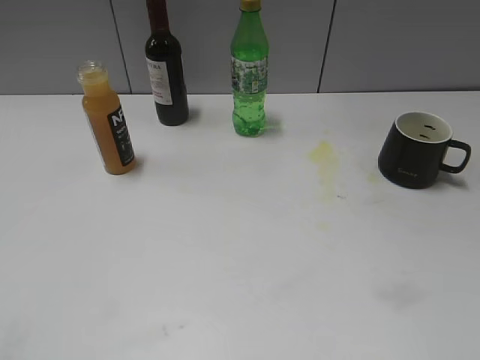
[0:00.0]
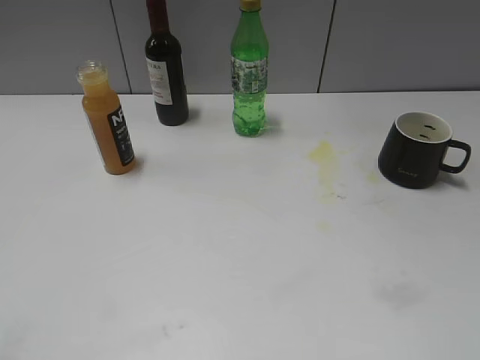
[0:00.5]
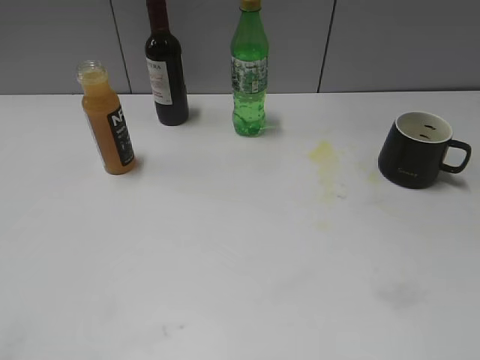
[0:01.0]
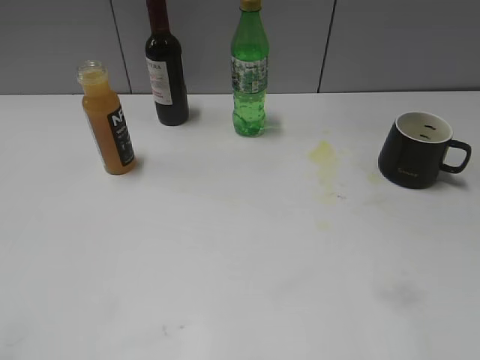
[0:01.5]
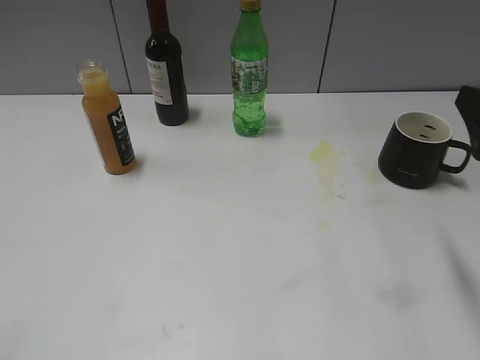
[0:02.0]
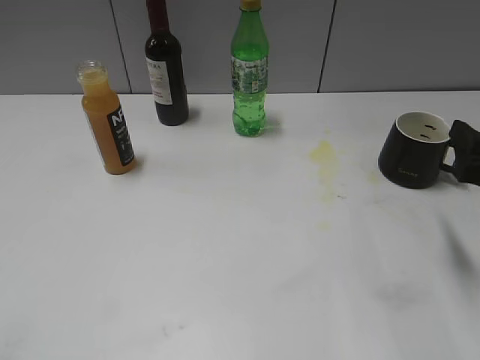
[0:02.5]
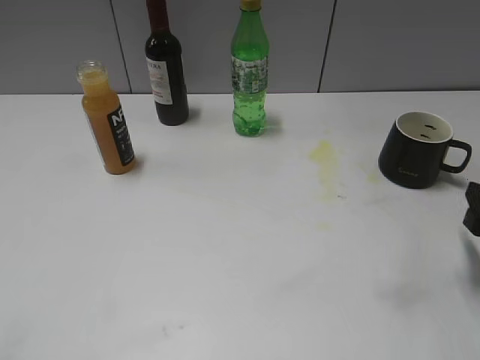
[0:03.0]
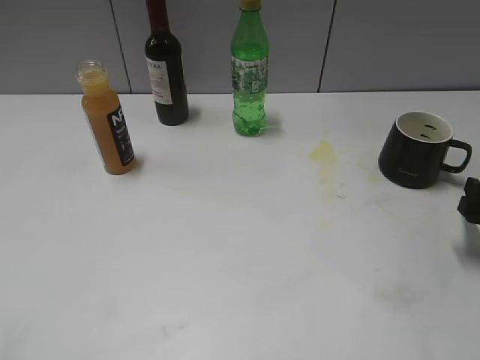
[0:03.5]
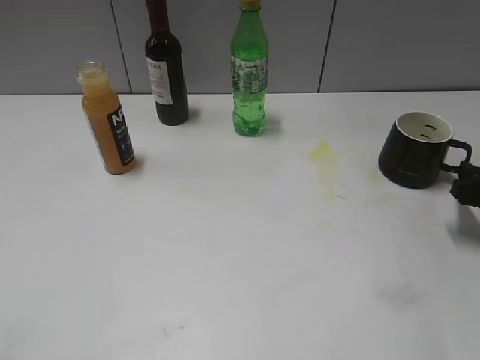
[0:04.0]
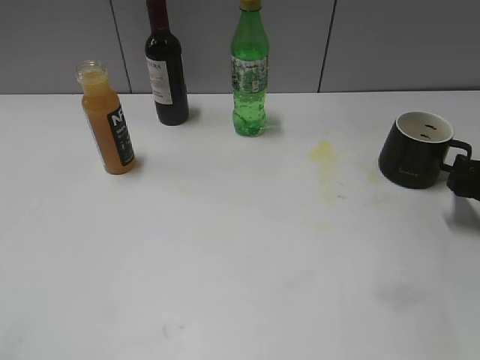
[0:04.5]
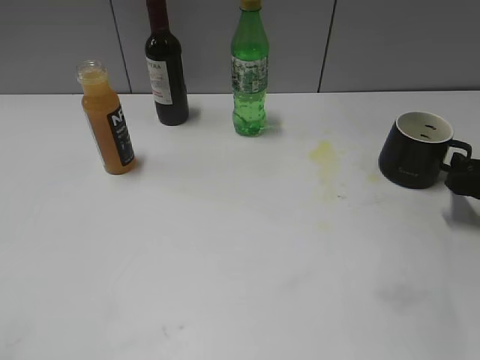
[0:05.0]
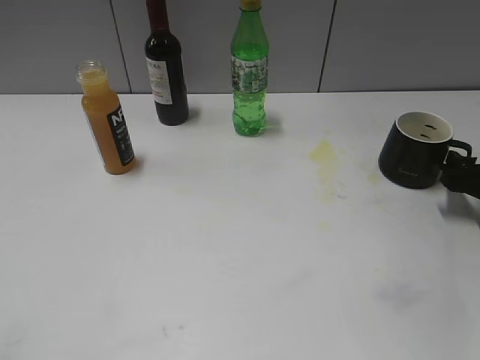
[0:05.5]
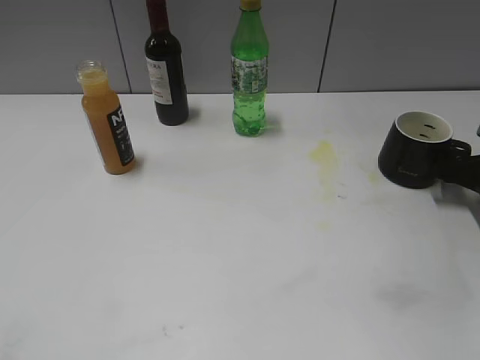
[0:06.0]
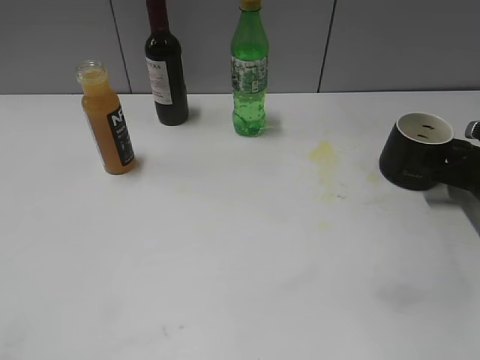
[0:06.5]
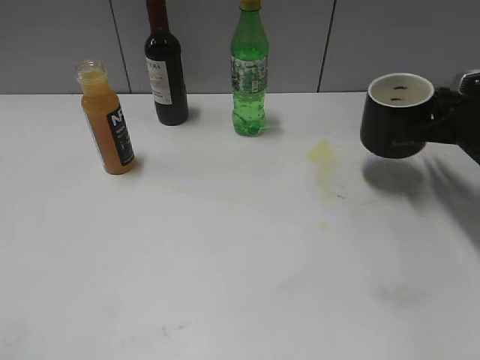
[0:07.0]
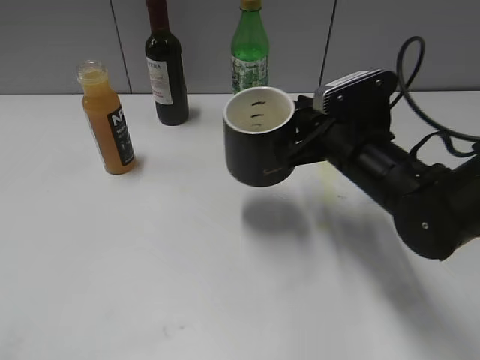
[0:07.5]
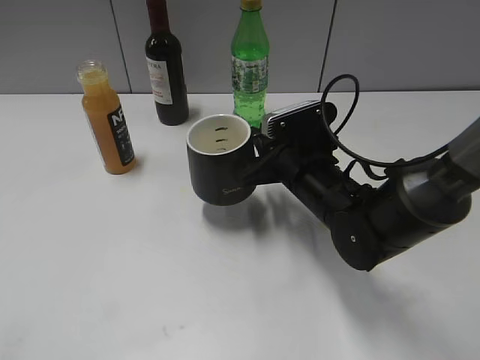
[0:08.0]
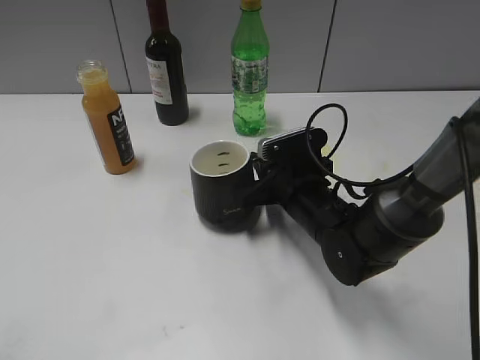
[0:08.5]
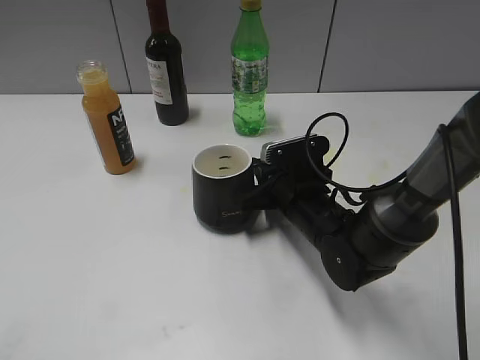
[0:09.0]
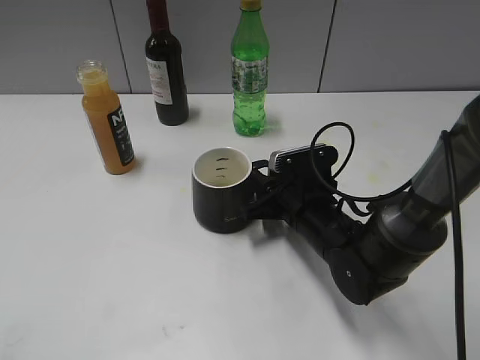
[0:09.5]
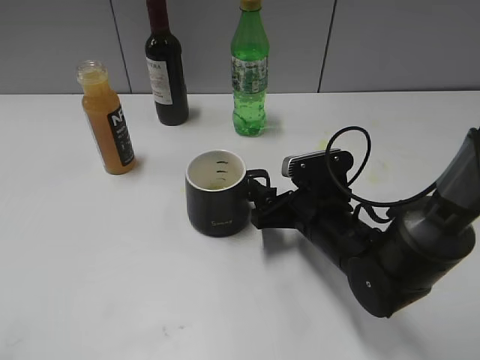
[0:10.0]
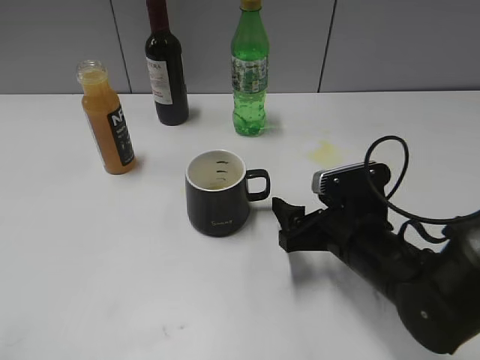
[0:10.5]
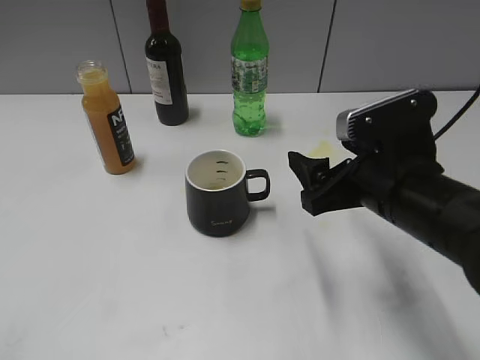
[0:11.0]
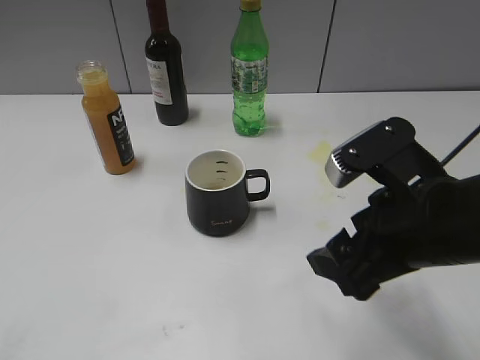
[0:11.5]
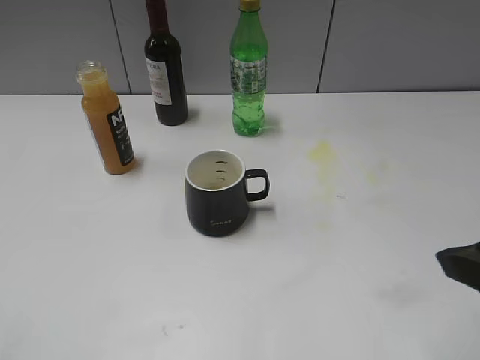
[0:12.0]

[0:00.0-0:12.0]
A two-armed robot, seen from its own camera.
Step, 0:01.0 to 0:06.5: Grasp the black cup with right gripper.
Step, 0:07.0 to 0:10.0: Place the black cup in the center of view with right gripper.
0:02.0 to 0:04.0: The right gripper travels downward, forward and to the right by approximately 20 cm.
0:04.0 to 0:06.0: The right gripper heads forward, covering approximately 5 cm.
0:06.0 to 0:08.0: The right gripper shifts roughly 25 cm to the left, and closes up.
0:08.0 to 0:10.0: The right gripper changes place by some 5 cm, and opens its fingers.
0:10.0 to 0:12.0: The right gripper travels upward, backward and to the right by some 25 cm.

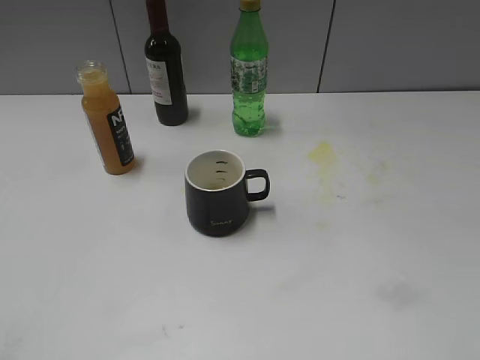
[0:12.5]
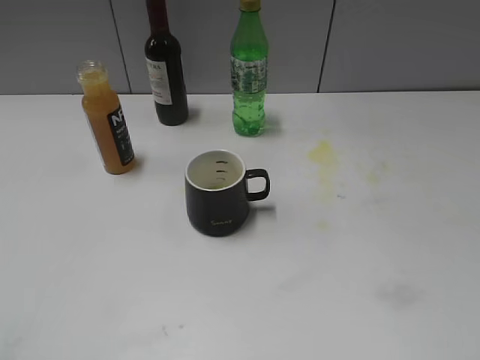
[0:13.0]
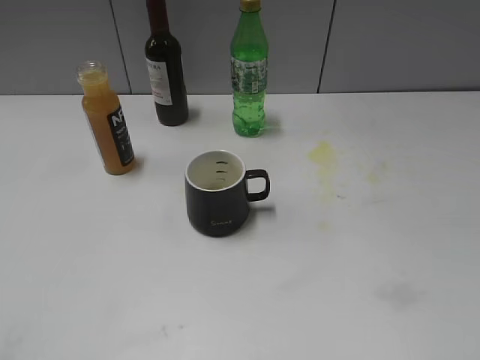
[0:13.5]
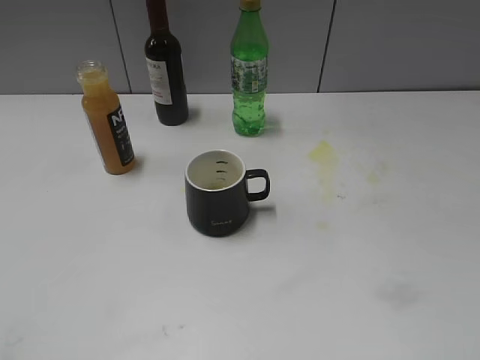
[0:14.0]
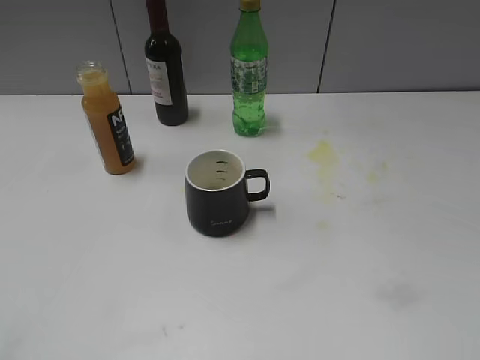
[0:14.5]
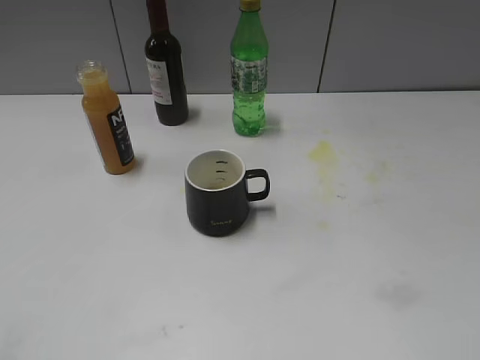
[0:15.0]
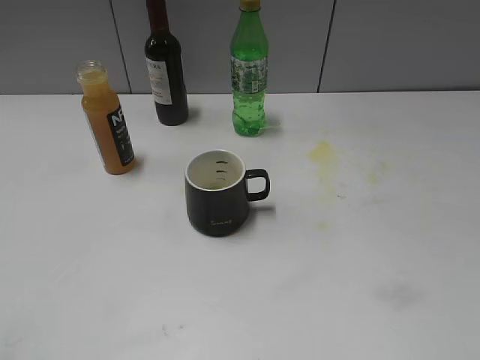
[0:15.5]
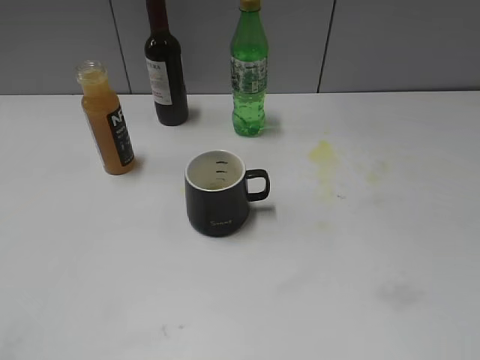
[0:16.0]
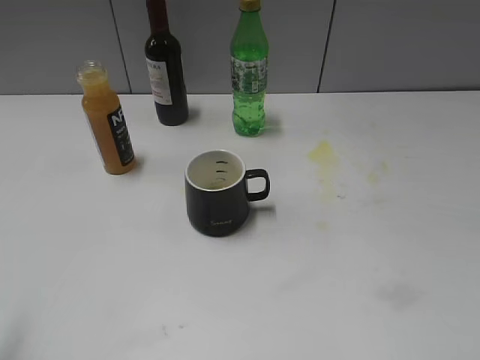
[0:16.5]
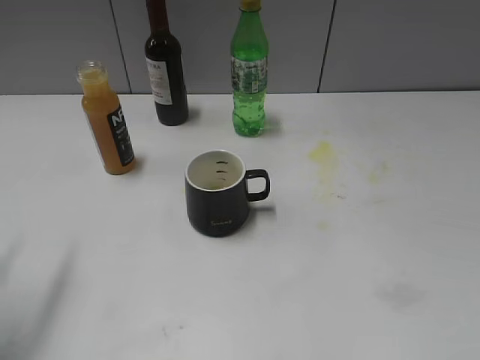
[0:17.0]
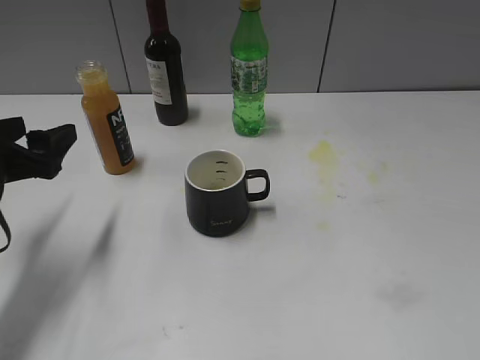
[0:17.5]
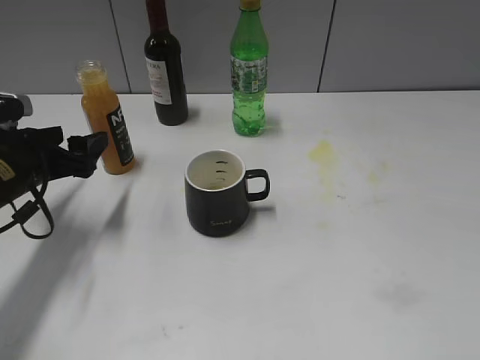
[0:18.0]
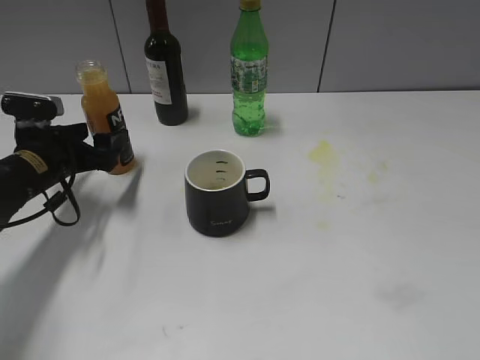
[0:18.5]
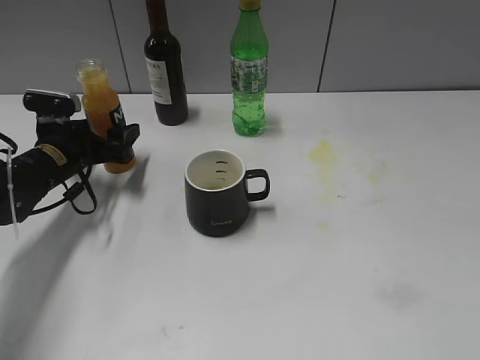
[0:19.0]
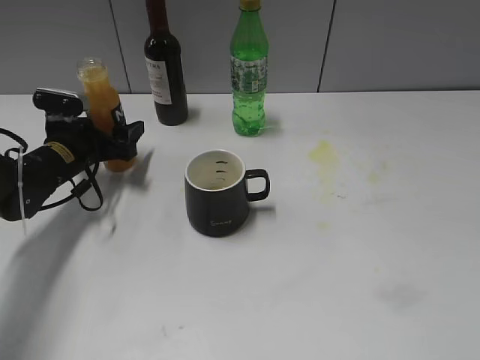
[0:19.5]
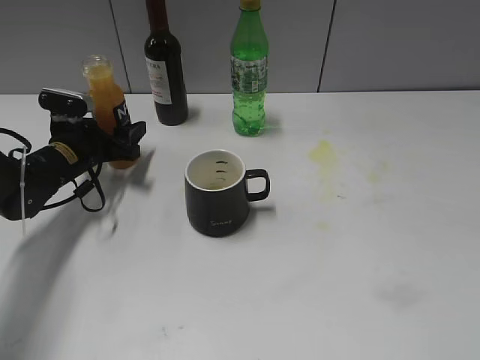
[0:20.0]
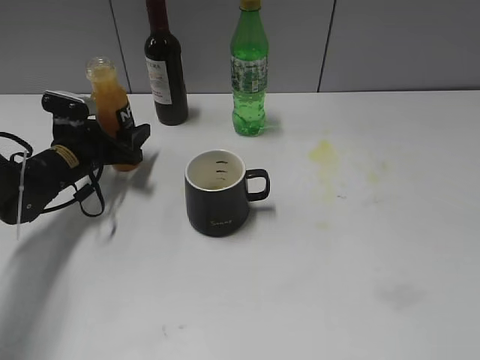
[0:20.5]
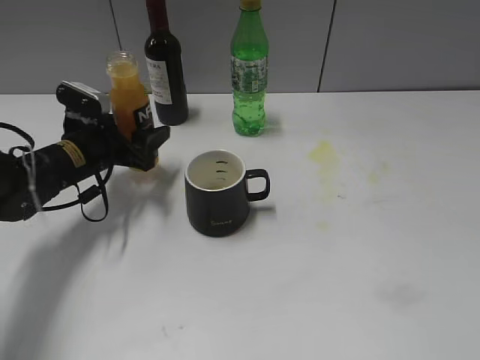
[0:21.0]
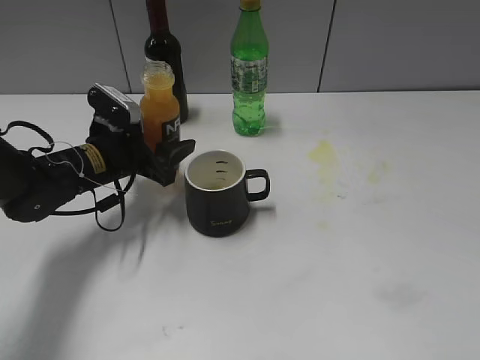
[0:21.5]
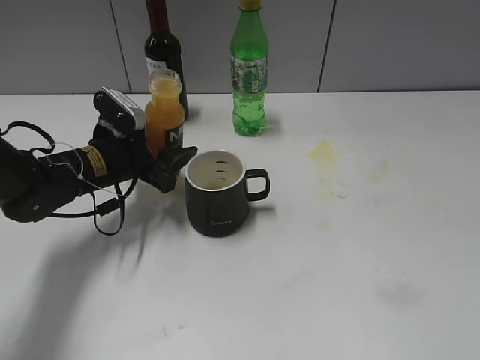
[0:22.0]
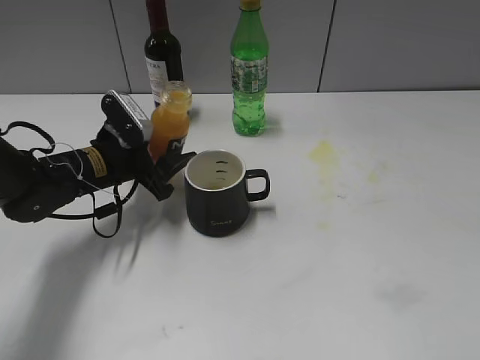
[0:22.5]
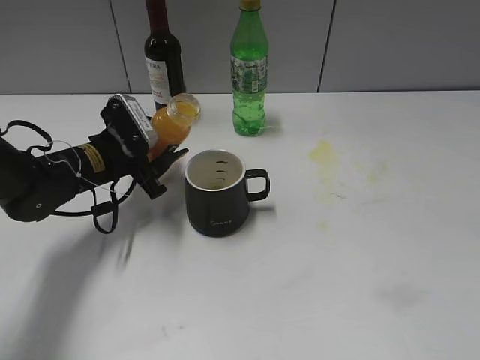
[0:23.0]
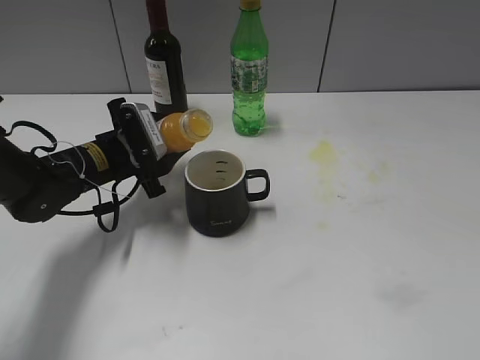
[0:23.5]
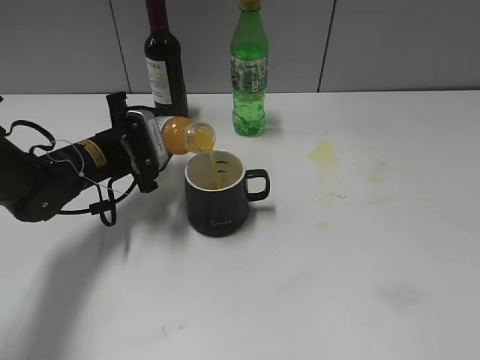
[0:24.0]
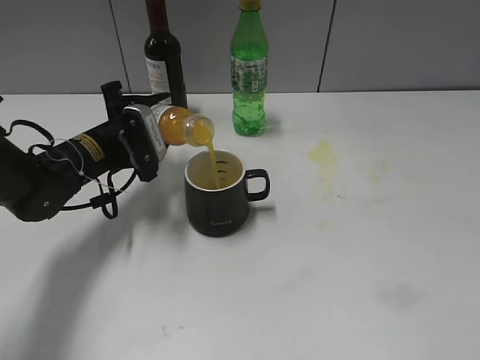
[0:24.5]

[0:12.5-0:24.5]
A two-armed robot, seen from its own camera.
Step, 0:12.5 to 0:19.5: Grasp the bottle with orange juice with left gripper.
0:16.5 to 0:18.5: The left gripper shifts approximately 35 cm forward and downward.
0:18.5 to 0:20.5: The left gripper moves forward, roughly 5 cm, and closes.
0:20.5 to 0:22.5: The left gripper goes roughly 5 cm to the right.

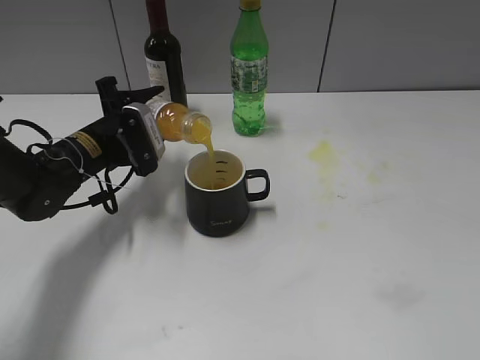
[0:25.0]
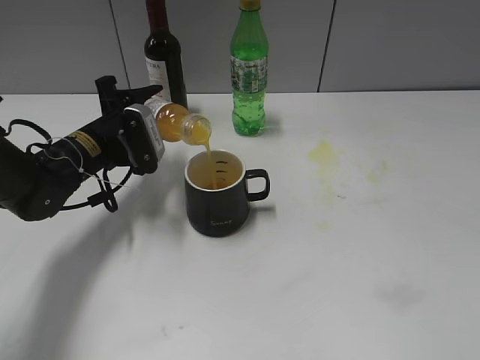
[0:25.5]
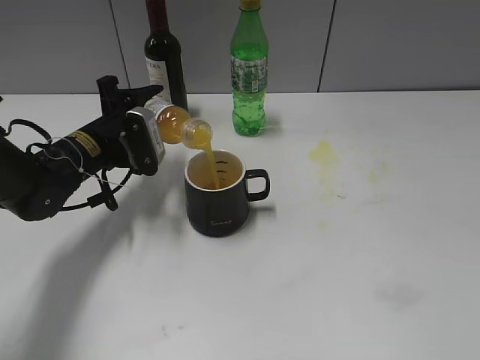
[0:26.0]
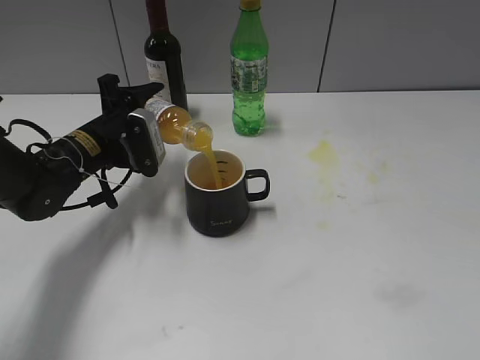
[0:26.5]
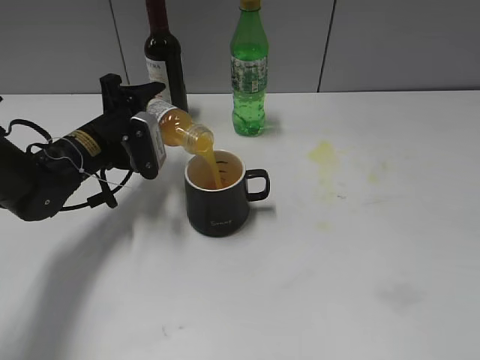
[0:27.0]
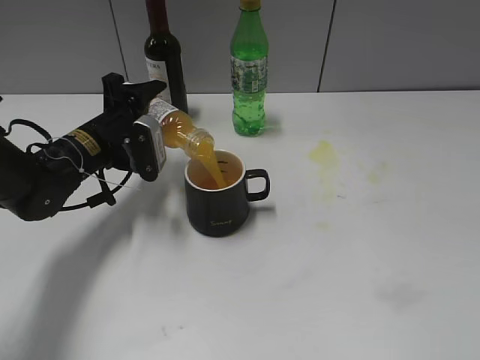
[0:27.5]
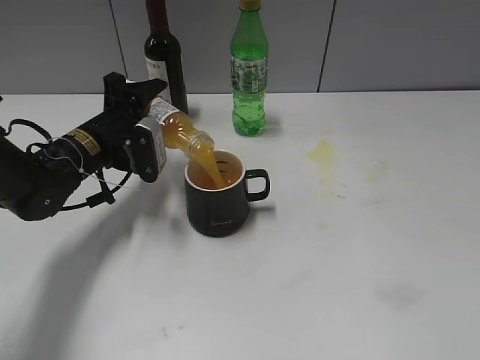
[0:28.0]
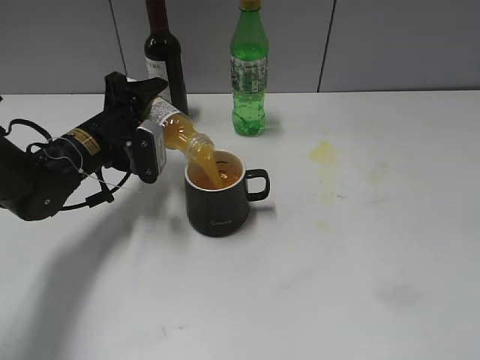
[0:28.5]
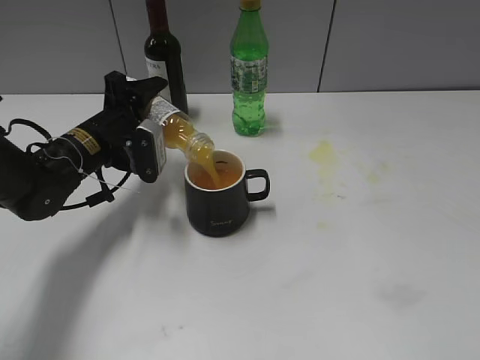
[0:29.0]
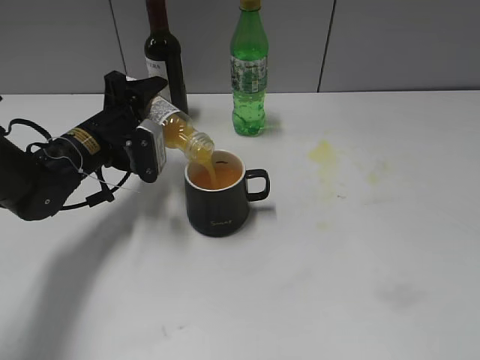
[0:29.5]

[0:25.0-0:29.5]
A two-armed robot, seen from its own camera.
0:25.0 to 0:27.0: The grippers make only small movements.
0:27.0 to 0:29.5: There are only small adjustments of the grippers.
